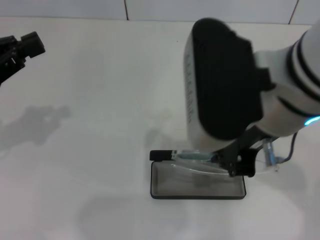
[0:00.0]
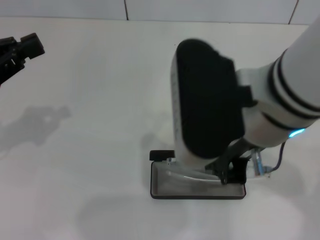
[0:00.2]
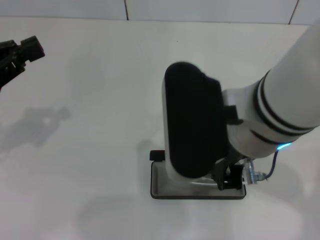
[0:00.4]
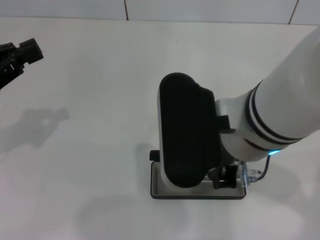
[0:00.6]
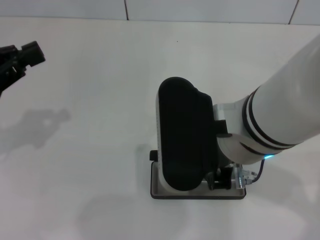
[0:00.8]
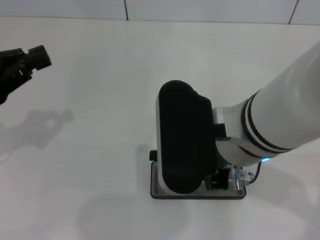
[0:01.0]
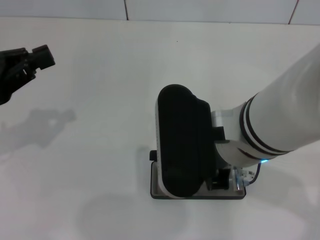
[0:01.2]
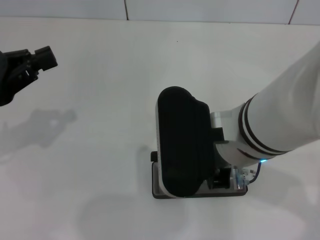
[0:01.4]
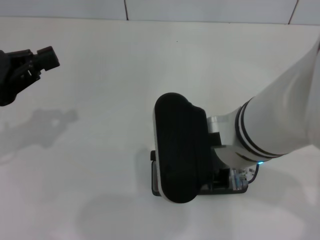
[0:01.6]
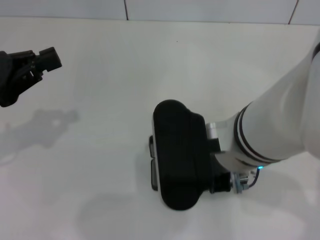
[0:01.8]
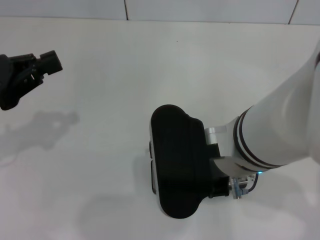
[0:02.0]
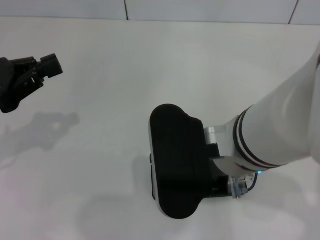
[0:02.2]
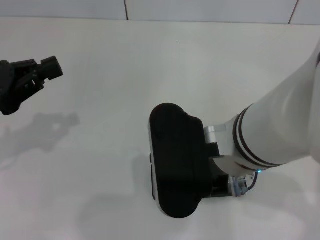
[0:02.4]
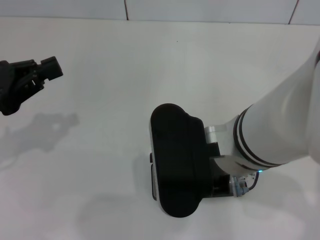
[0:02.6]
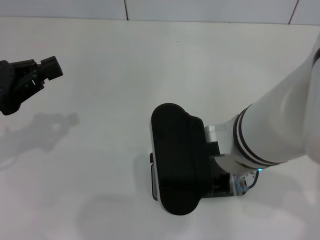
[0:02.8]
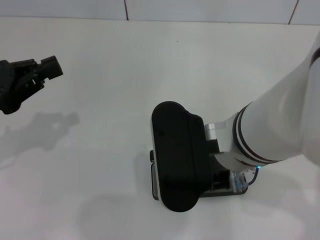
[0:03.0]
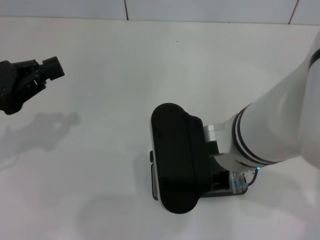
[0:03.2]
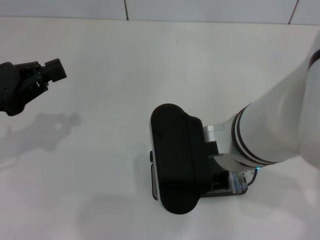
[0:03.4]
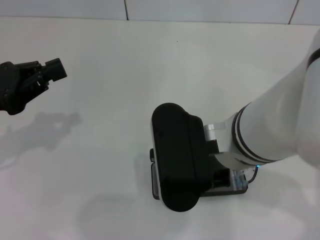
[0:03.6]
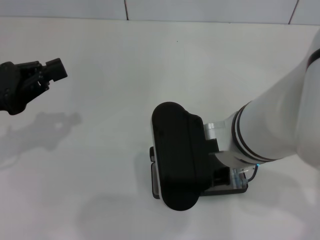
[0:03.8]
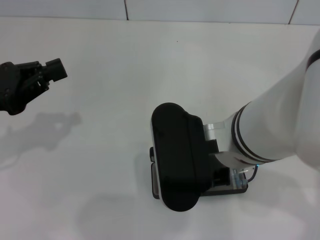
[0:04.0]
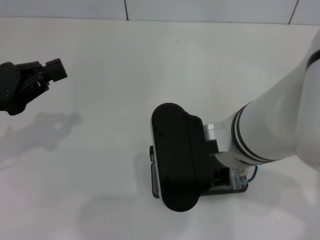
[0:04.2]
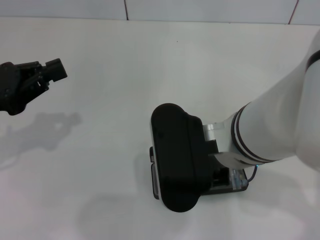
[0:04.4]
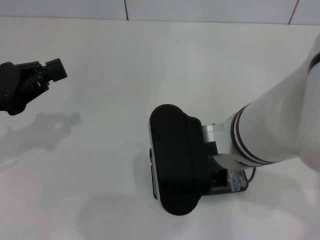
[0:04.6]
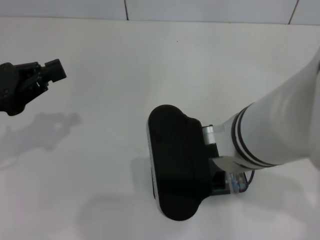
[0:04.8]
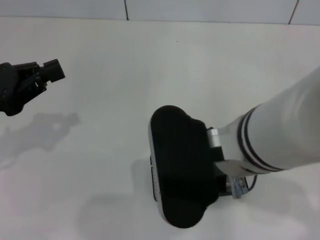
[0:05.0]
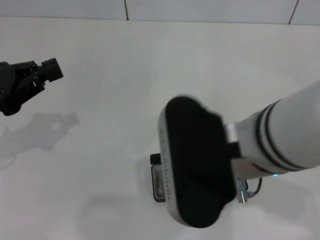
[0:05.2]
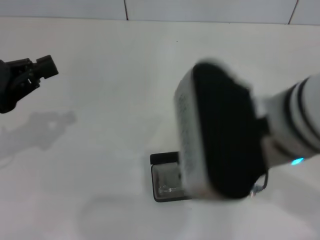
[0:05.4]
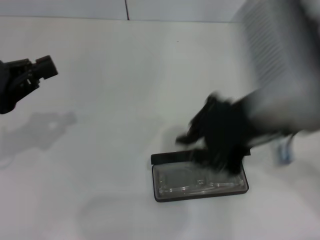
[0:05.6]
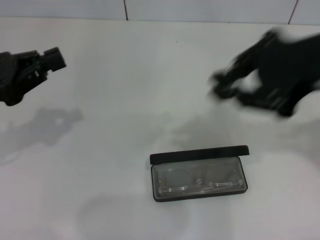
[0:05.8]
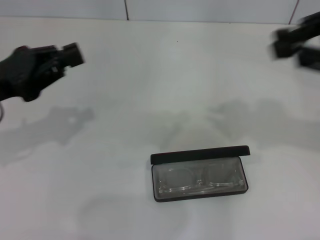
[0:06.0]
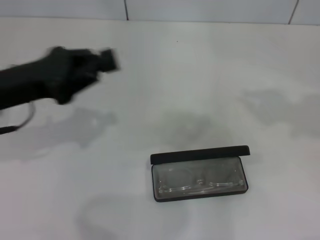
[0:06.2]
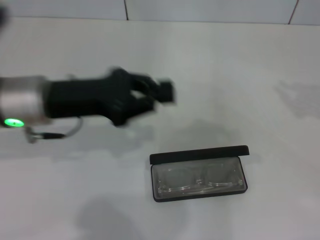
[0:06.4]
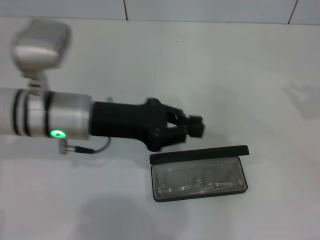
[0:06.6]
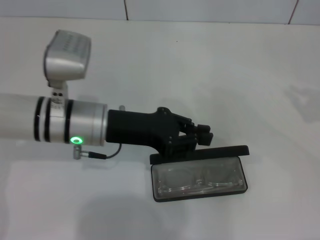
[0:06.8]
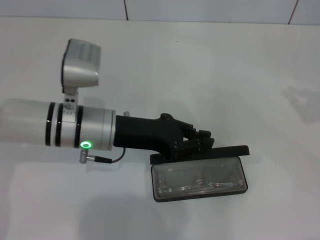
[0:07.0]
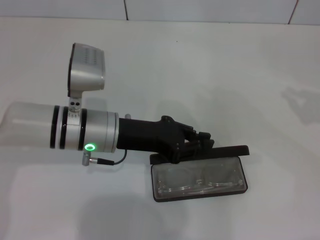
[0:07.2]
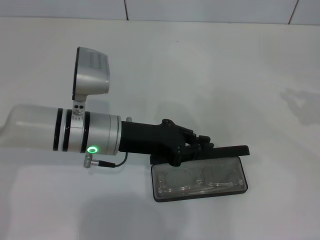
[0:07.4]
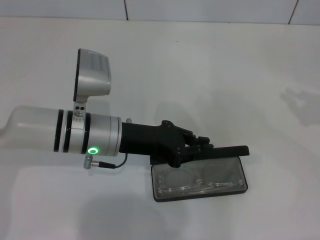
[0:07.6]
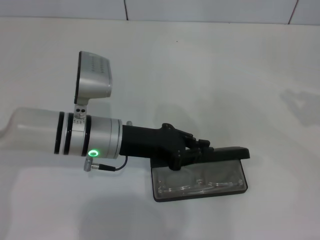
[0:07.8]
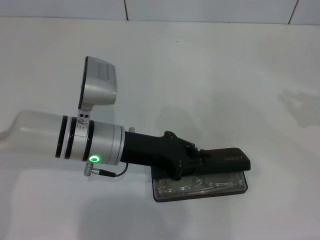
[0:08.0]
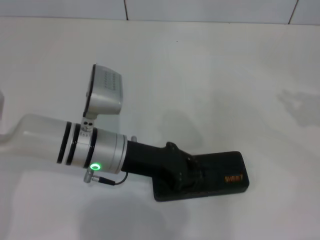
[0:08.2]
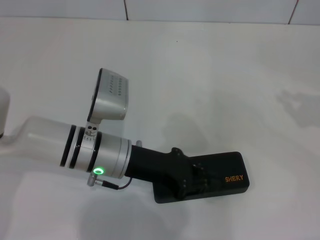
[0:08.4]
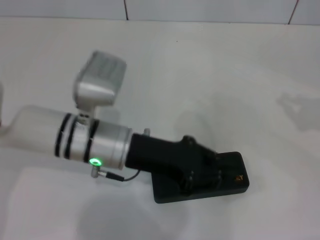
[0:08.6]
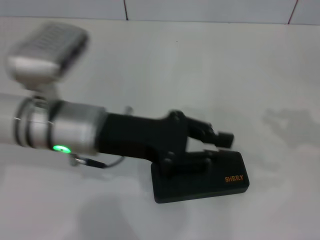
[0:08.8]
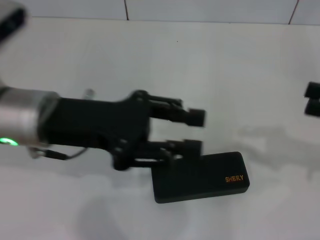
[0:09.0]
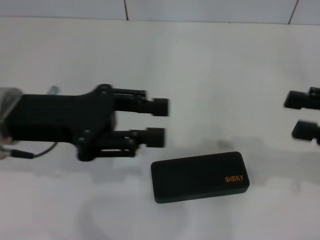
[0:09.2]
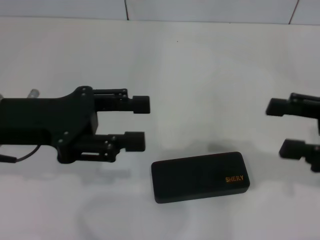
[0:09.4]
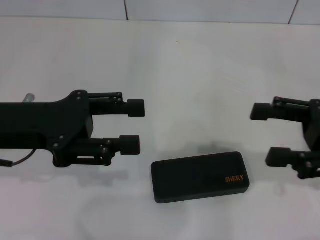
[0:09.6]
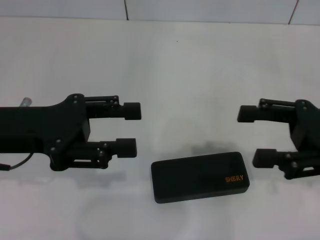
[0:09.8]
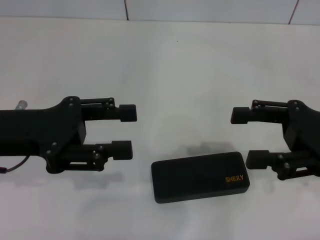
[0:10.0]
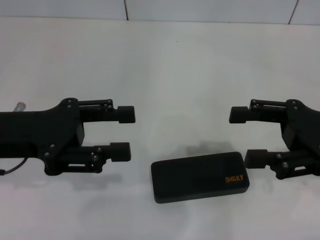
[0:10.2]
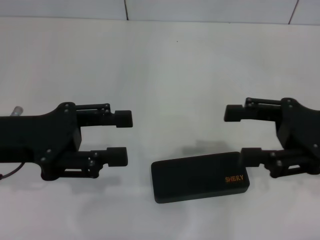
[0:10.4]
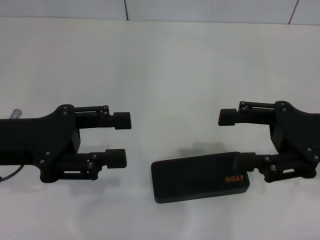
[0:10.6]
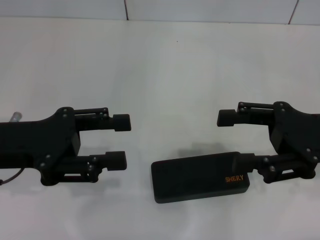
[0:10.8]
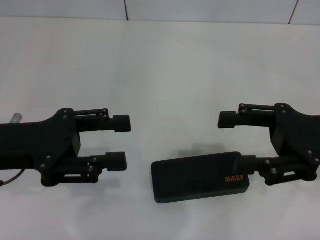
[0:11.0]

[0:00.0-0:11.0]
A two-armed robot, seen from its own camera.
Step, 0:00.0 to 0:05.0: Put the glasses into the case with your right hand.
Step, 0:05.4 to 0:08.6: Close the glasses case with your left hand.
0:00.0 to 0:01.6: The right gripper travels downward by approximately 5 cm.
0:01.6 to 0:04.8: Both grippers stay put.
0:04.8 to 0:06.2: The right gripper goes approximately 25 cm to the right, while the left gripper heads to the right, covering some 5 cm.
0:06.2 to 0:07.8: The left gripper moves to the right and downward, roughly 15 cm. Meanwhile the right gripper travels downward and to the right by about 10 cm.
0:07.8 to 0:09.4: The right gripper is displaced to the left by about 10 cm, and opens up. The left gripper heads to the left and upward, covering roughly 15 cm, and opens.
0:09.4 to 0:11.0: The right gripper changes place by some 5 cm.
